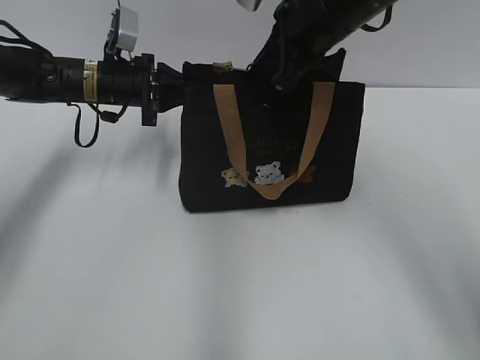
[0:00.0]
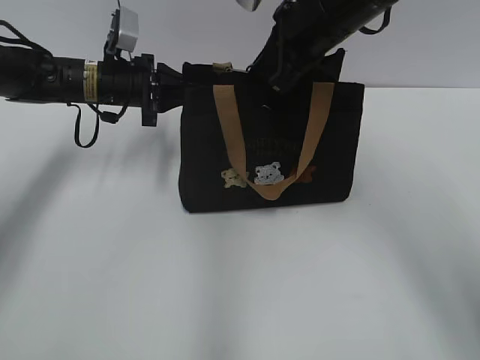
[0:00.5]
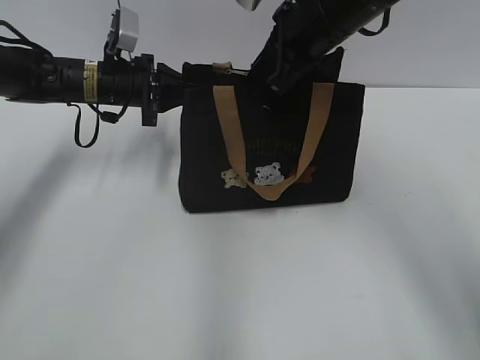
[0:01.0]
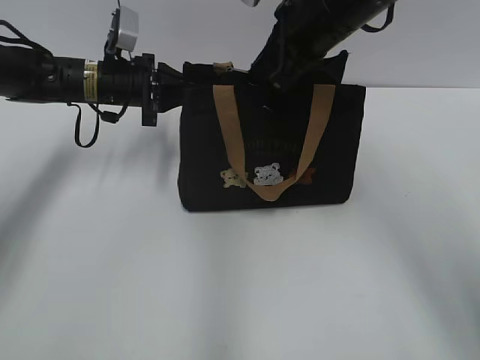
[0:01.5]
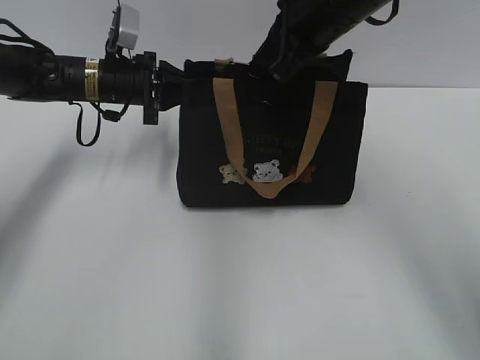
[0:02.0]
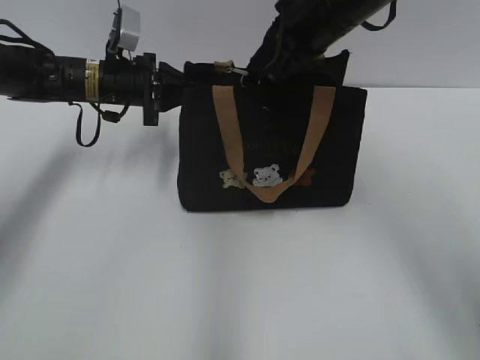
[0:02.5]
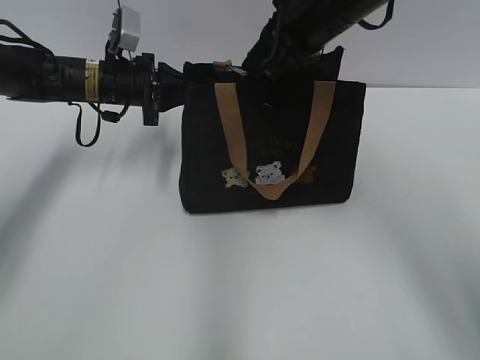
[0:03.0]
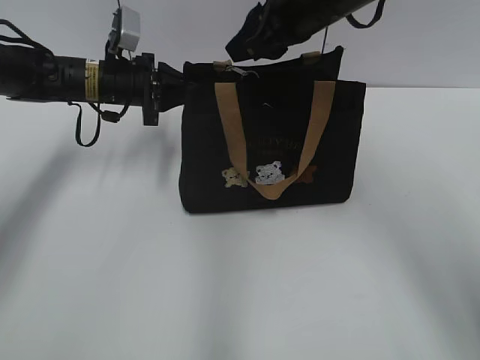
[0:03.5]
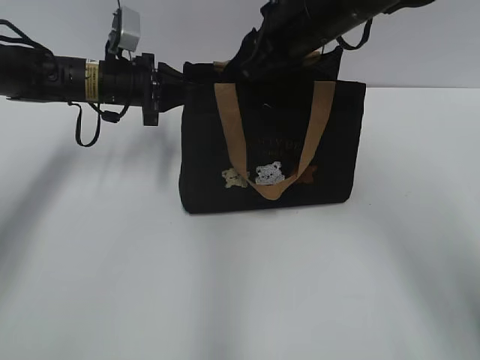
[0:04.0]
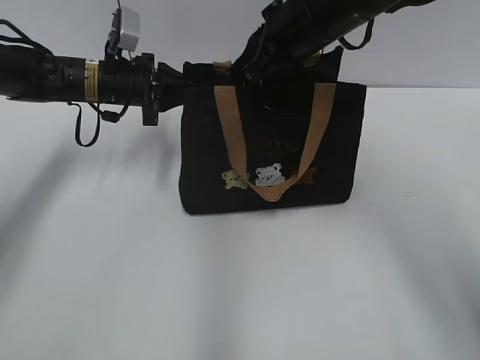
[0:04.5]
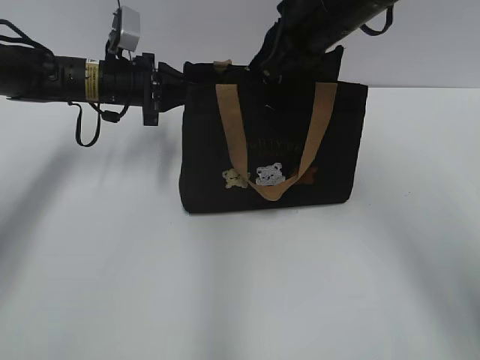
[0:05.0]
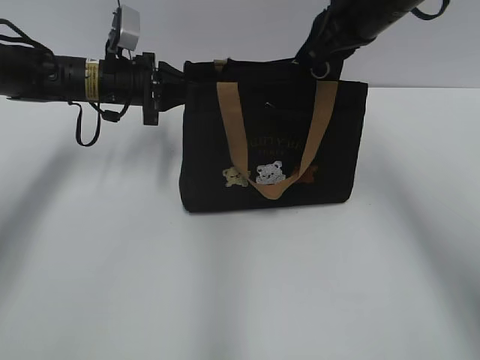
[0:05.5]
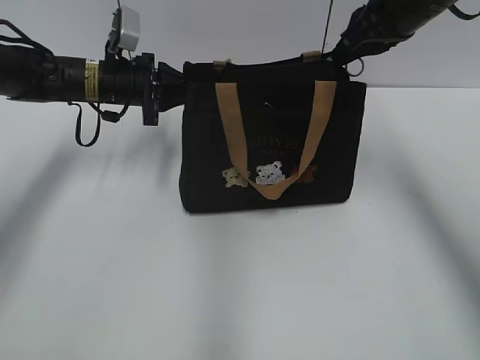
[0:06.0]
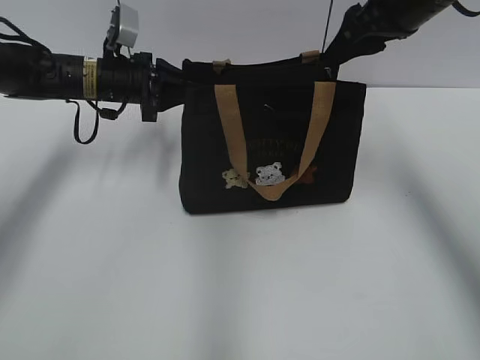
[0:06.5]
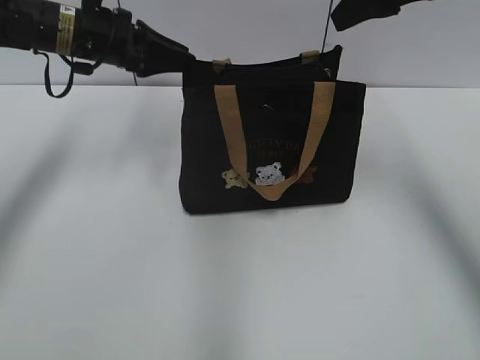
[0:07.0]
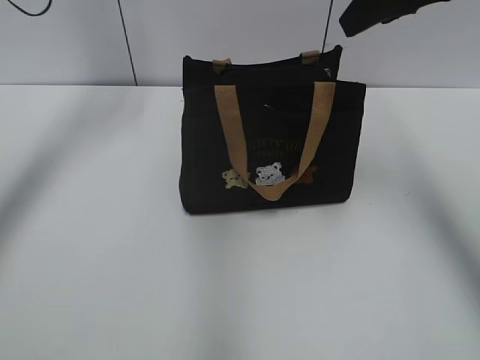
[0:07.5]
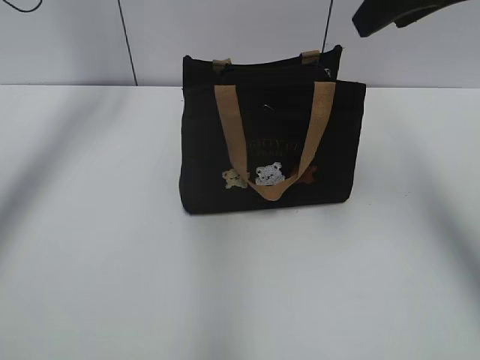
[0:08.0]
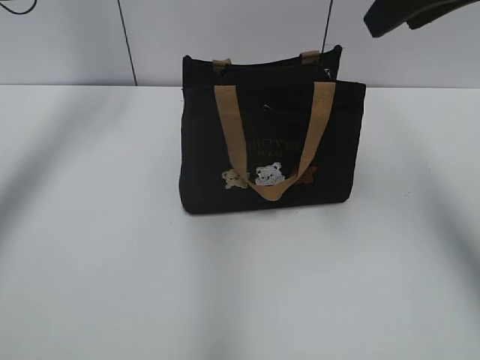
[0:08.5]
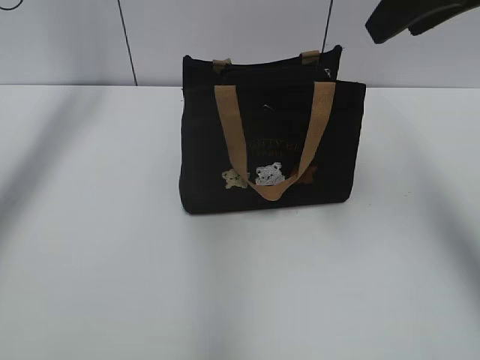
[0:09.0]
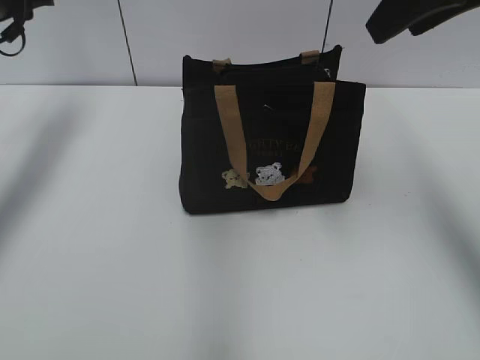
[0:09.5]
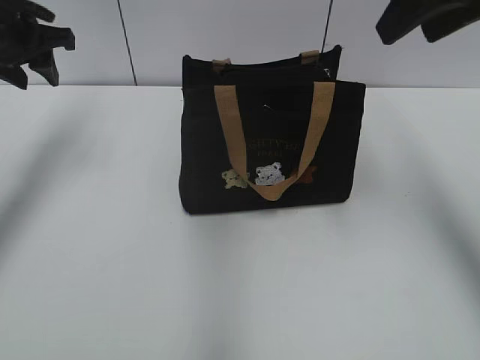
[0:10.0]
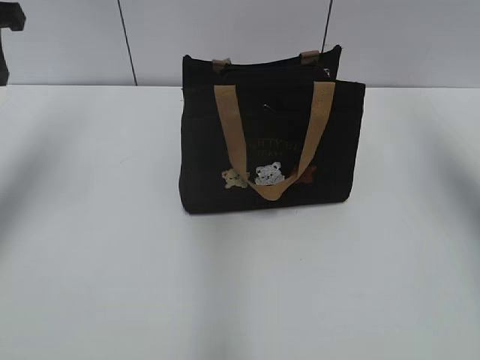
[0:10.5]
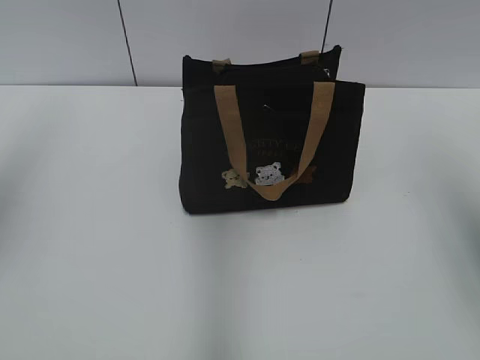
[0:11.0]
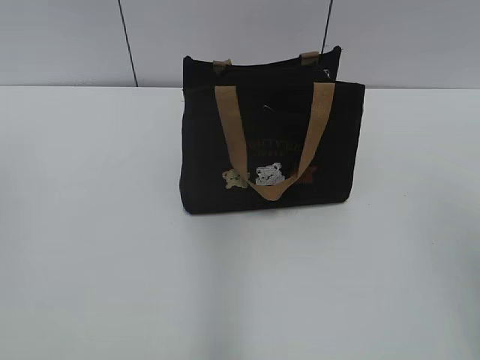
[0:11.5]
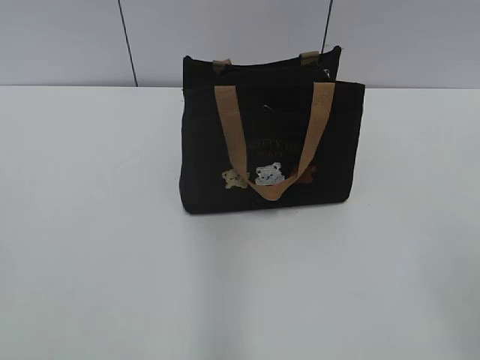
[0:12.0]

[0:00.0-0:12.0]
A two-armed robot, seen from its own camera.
Step, 0:00.0 to 0:06.0: Pull open the zipper with your right hand.
0:00.0 to 0:02.0: Both grippers stay put.
0:02.0 to 0:04.0: The right gripper opens its fingers.
0:04.0 to 0:06.0: The right gripper goes roughly 10 cm to the right, and closes its fingers.
0:06.0 to 0:08.0: The left gripper travels upward and to the left by approximately 15 cm, and opens its fingers. Meanwhile the right gripper heads upward and backward, covering about 10 cm, and opens its fingers.
0:08.0 to 0:10.0: The left gripper is displaced backward by approximately 5 cm.
0:10.0 to 0:12.0: Both grippers travel together backward, roughly 35 cm.
